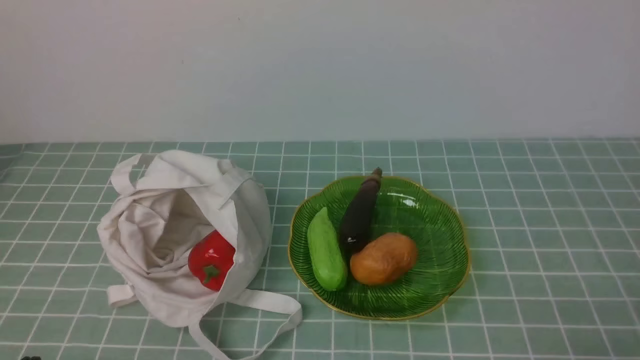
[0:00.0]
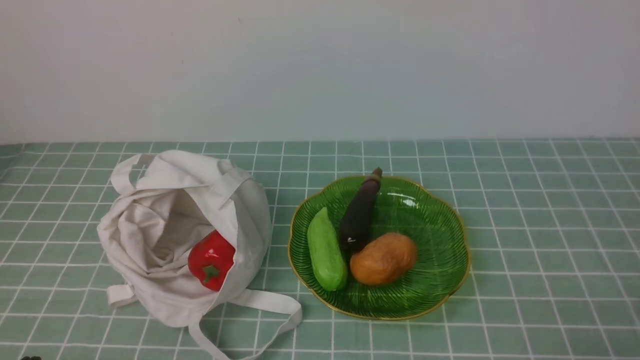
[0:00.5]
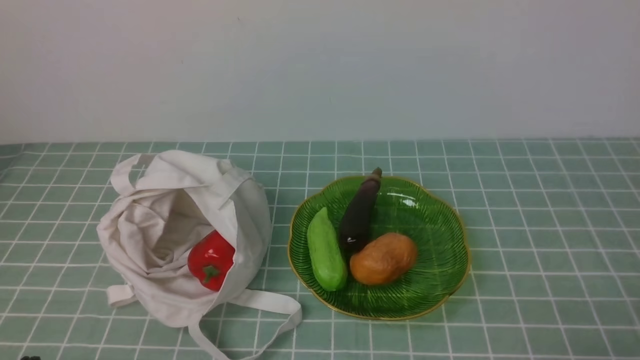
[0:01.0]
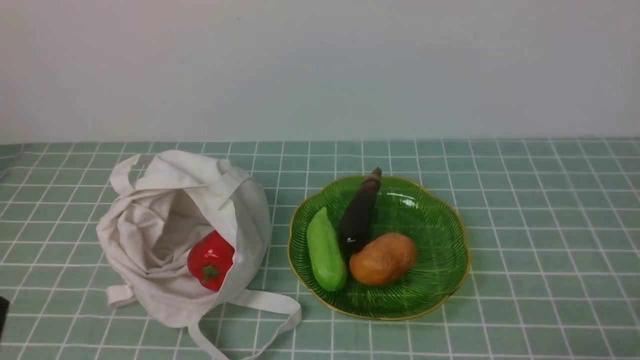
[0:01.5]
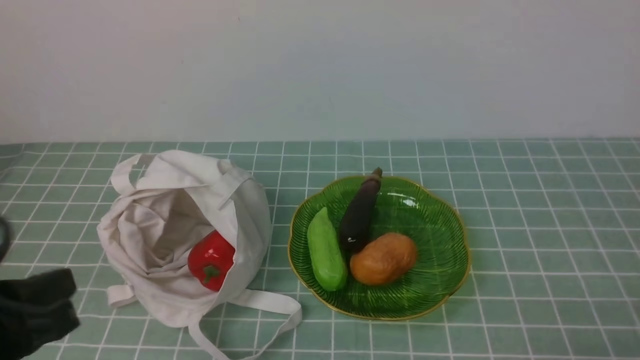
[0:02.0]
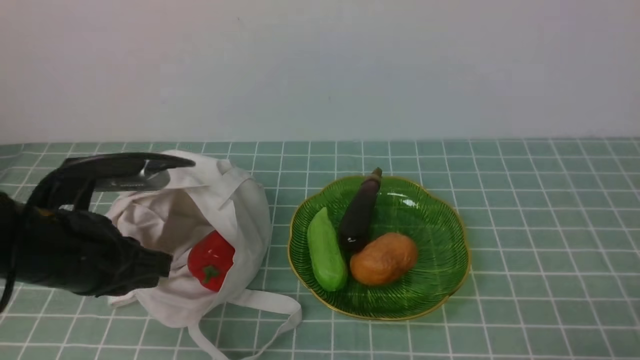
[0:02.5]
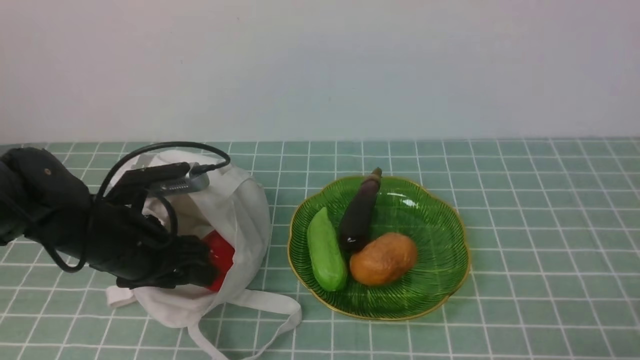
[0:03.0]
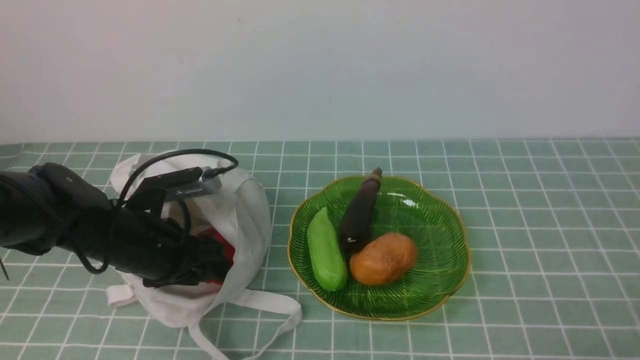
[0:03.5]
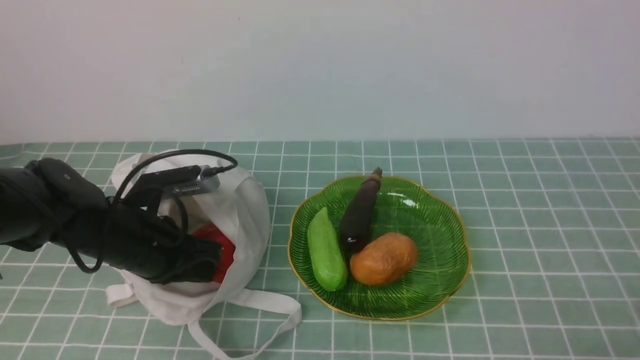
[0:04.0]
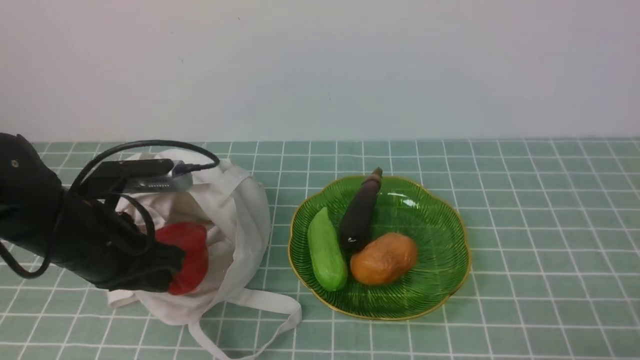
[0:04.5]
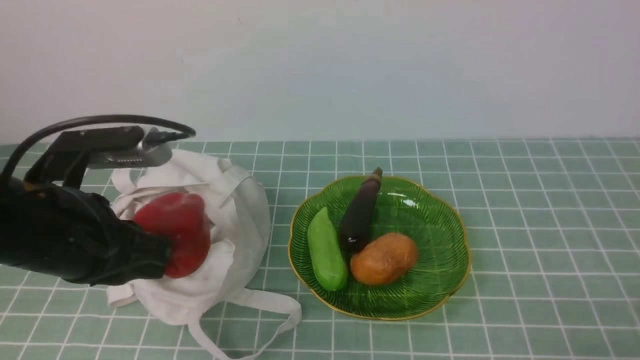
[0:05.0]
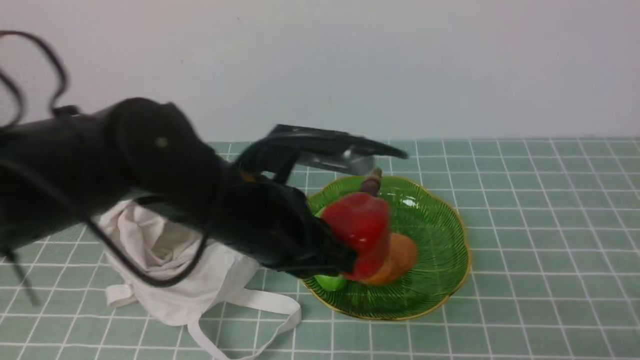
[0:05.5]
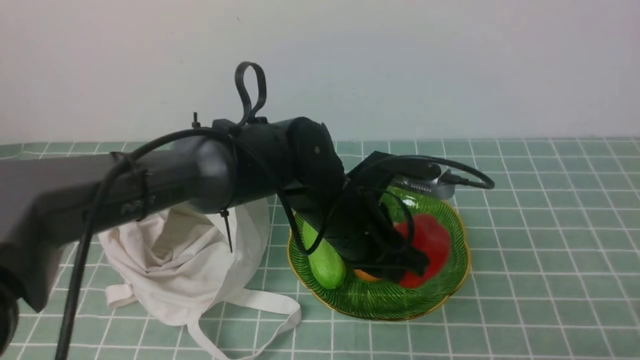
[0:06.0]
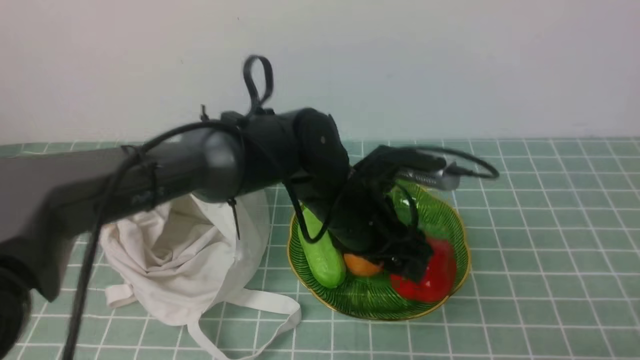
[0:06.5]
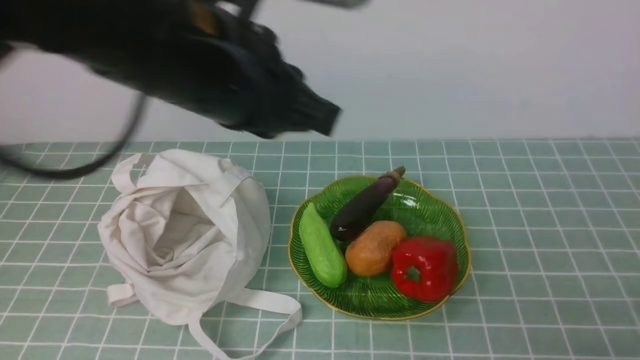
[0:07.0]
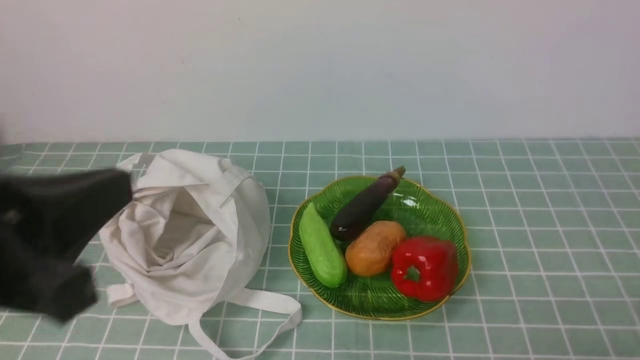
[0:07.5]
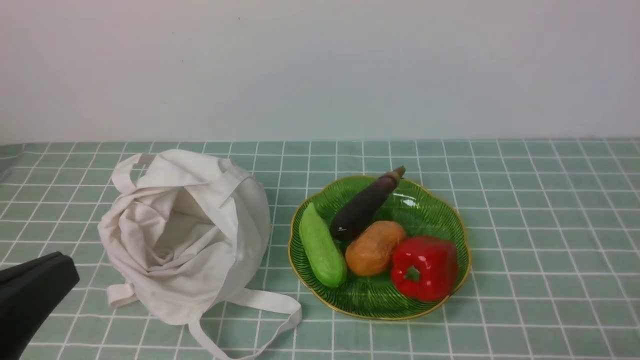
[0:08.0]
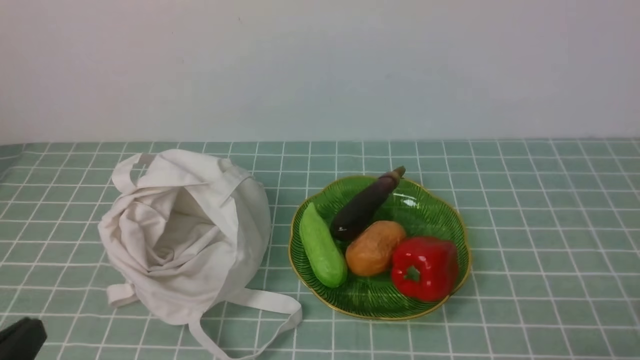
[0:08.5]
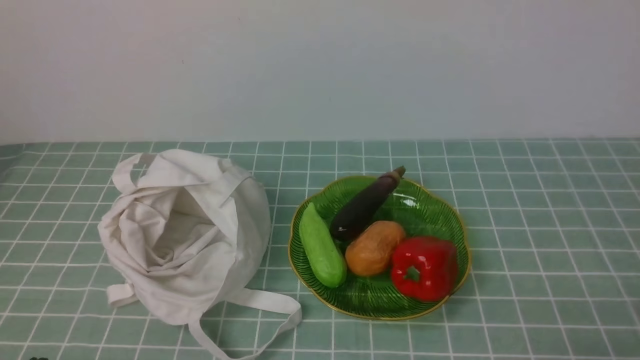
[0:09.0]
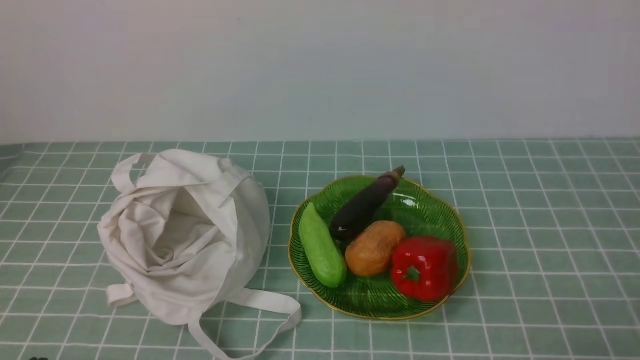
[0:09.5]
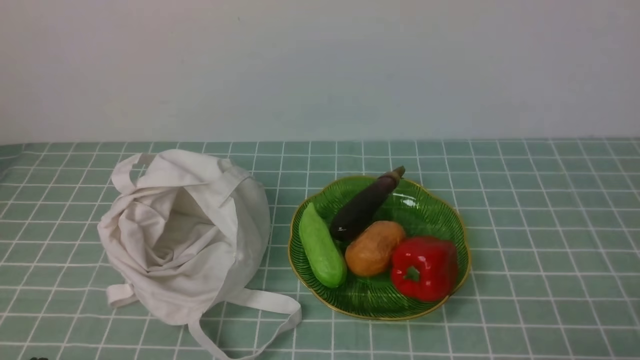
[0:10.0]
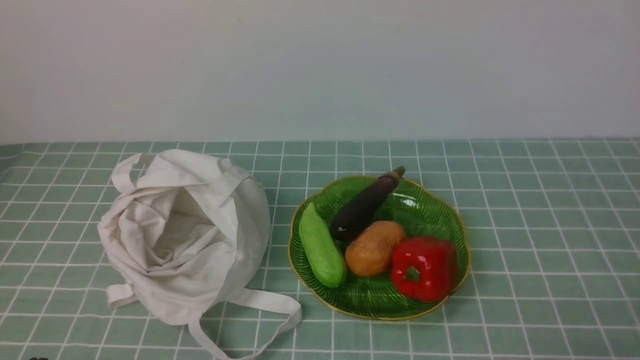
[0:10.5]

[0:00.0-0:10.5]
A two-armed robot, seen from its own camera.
Task of the whole recording: take vegetables from cloth bag on blue coffee tablecloth place on plate.
Step, 0:00.0 to 0:03.5: Grasp the bell pepper with left gripper.
Step, 0:04.0 to 0:06.5: Place the bell pepper on the plate with left gripper.
0:00.0 to 0:02.0: The left gripper is displaced upward and forward by some 10 cm.
0:02.0 to 0:04.0: The left gripper shifts about 20 cm forward and downward, and opens, then closes once more.
0:04.0 to 0:06.5: The left gripper goes some 20 cm to the right, and opens its fingers.
0:06.5 to 0:08.5: The left gripper travels backward and to the left by about 35 cm, and closes.
0:08.5 to 0:10.5: The left gripper heads downward, covering some 5 cm.
